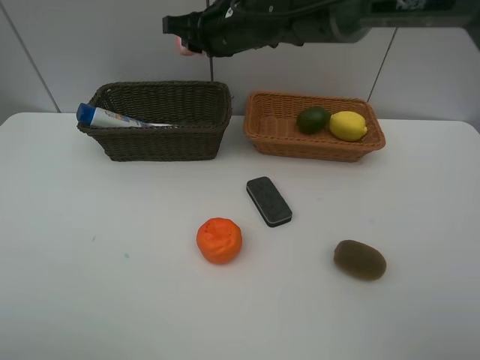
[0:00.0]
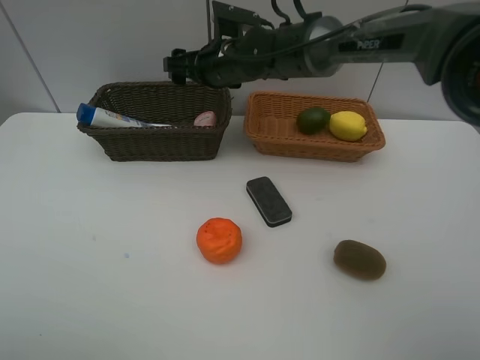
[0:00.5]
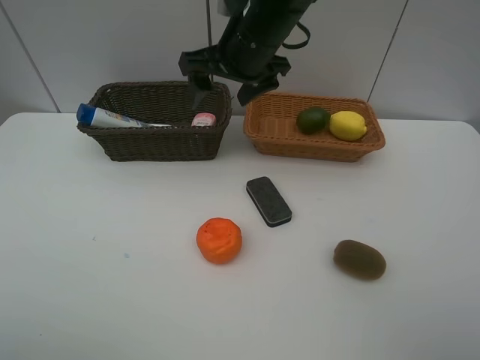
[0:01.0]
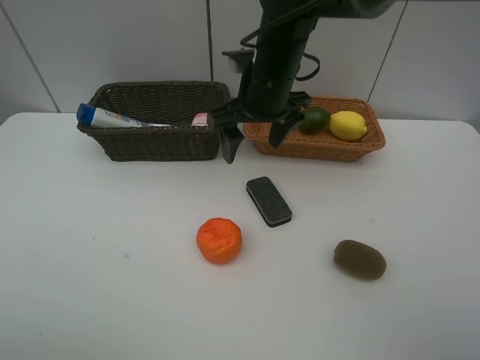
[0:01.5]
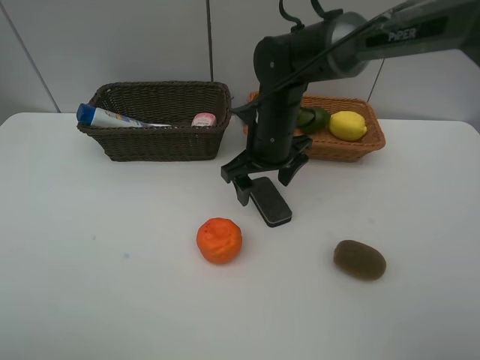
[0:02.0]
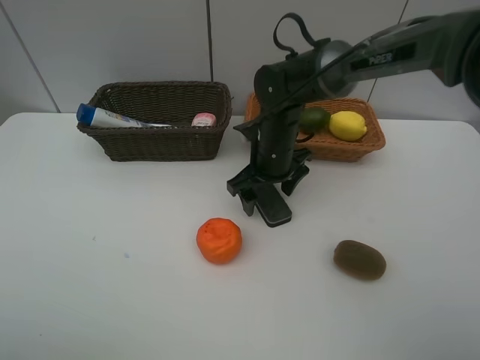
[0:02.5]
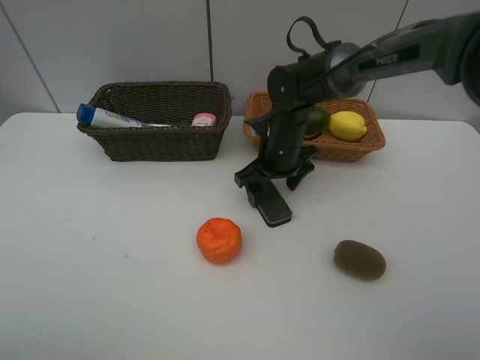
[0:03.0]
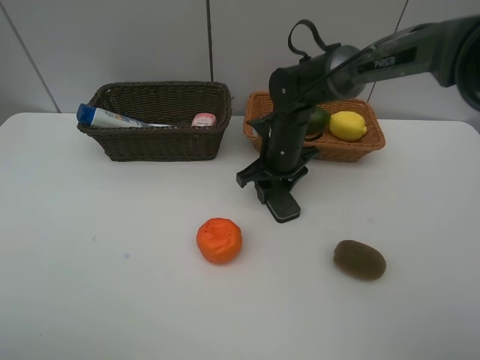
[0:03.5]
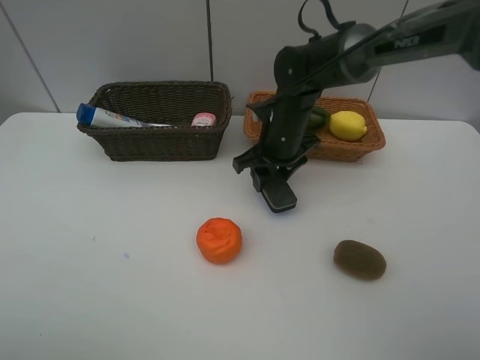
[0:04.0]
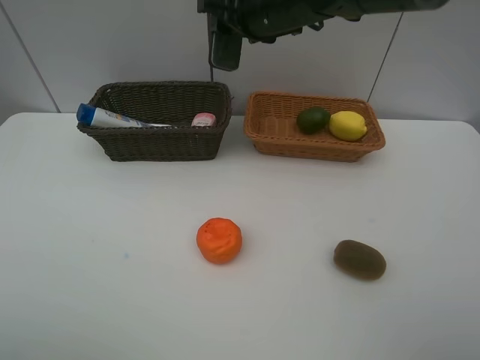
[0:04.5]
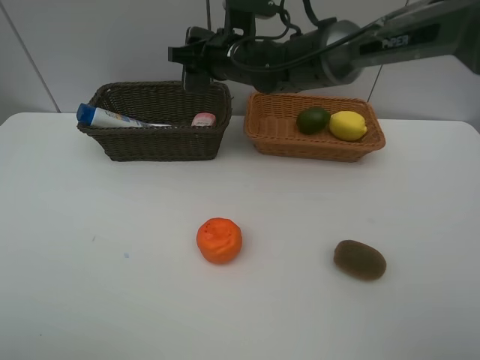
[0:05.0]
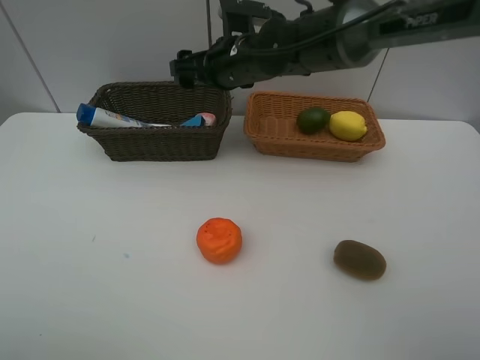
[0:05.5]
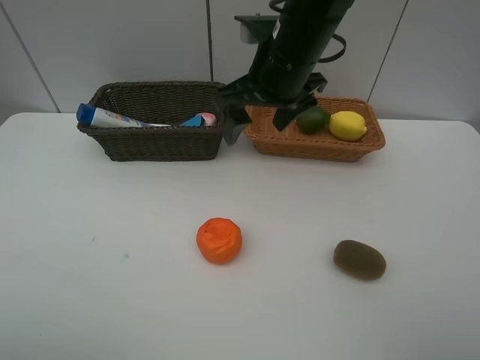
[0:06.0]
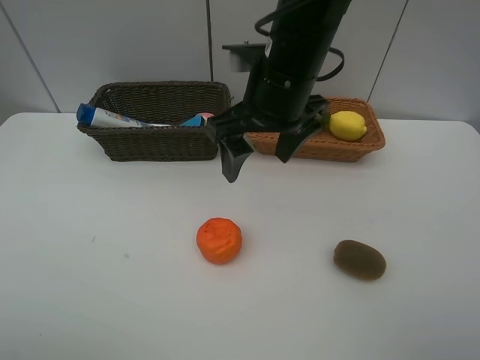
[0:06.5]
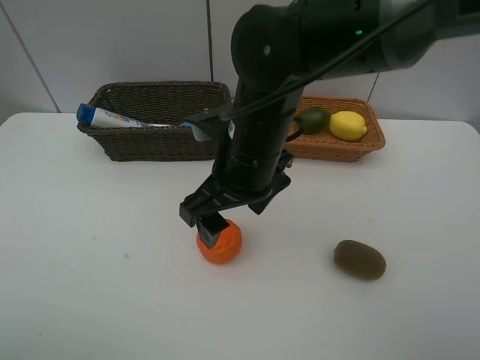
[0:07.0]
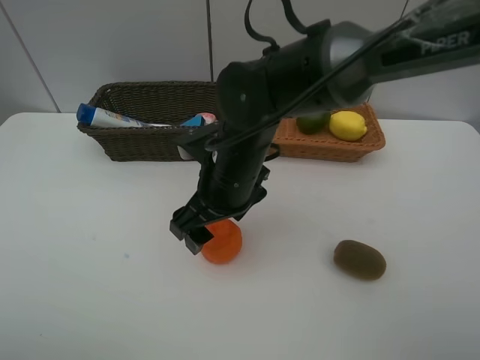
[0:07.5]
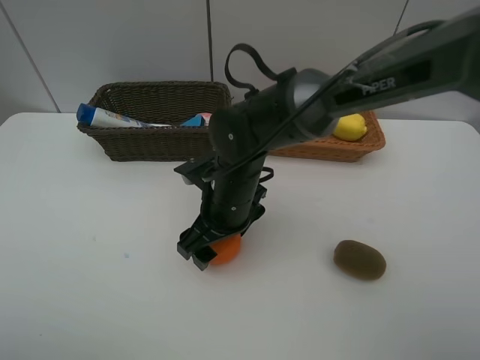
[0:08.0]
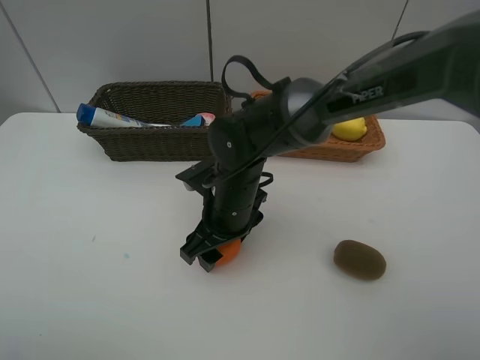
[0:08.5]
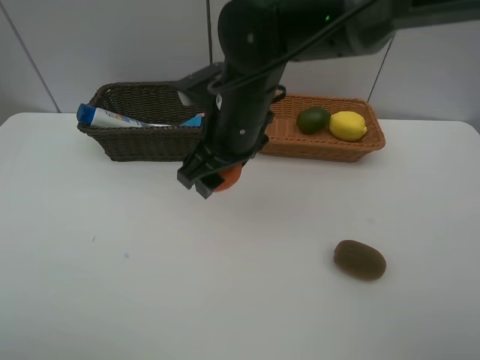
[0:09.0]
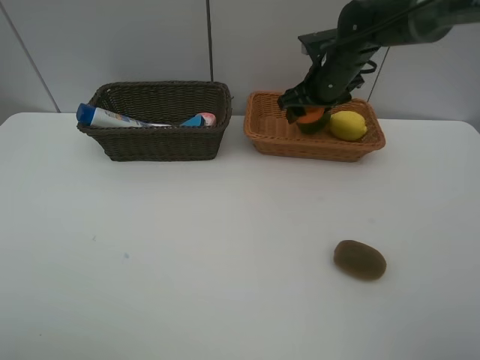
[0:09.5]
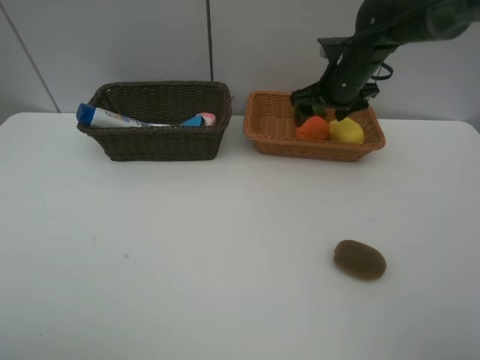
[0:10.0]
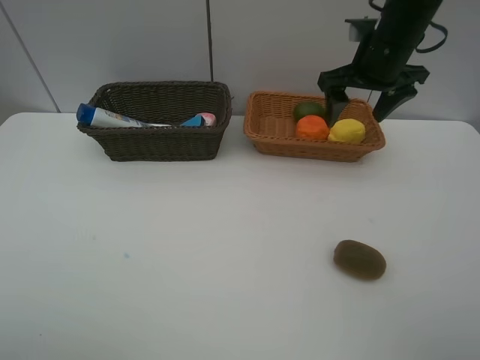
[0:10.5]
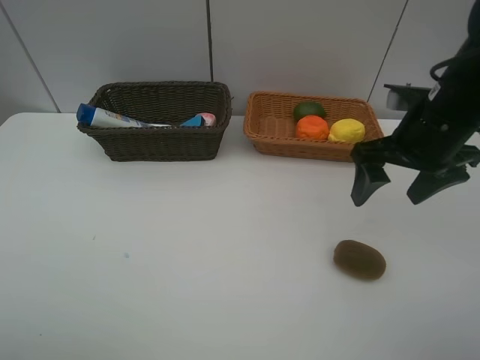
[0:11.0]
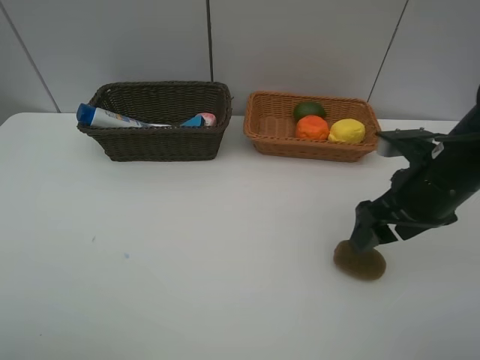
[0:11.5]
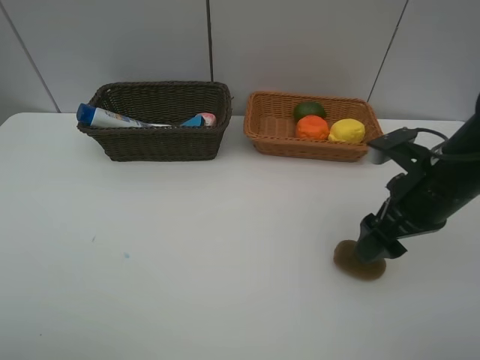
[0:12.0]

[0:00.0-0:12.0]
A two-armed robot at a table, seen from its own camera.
Task of the whole recording: Place multiple objects separately in different baskets.
Step, 0:01.0 to 0:04.0: Pick up blackboard eraser with right gripper.
Step, 0:04.5 to 0:05.0: Place the blackboard eraser in the dark basket with right gripper.
Step, 0:05.5 to 0:08.5: Pick up the orange with right gripper.
Step, 0:09.0 to 0:09.5: Place the orange in the light basket with right gripper.
0:00.0 to 0:02.0: The right gripper swings up and down, some 10 cm each way, with 2 reversals, and opens.
0:02.0 to 0:04.0: The right gripper closes up.
0:04.0 to 0:06.0: The right gripper goes up and down, approximately 15 cm each way, reversing 2 times, and opens up.
0:06.0 to 0:08.0: The right gripper is displaced downward, to the left and backward by some 20 cm.
0:08.0 to 0:10.0: The right gripper goes roughly 25 cm forward, to the right and upward.
0:10.0 to 0:12.0: The right gripper goes approximately 20 cm backward.

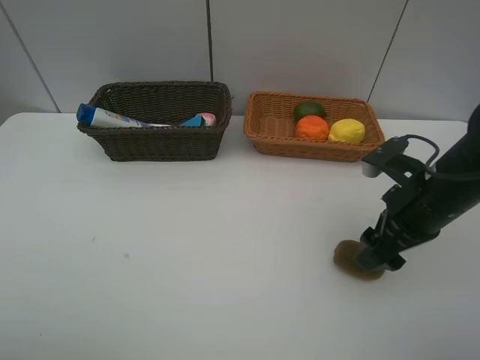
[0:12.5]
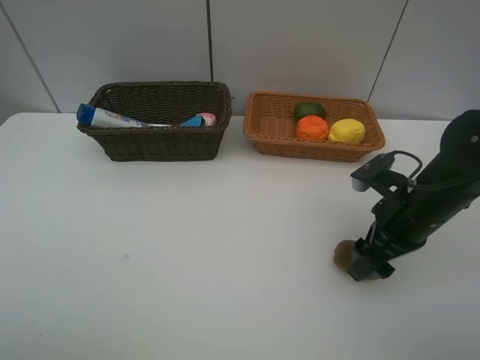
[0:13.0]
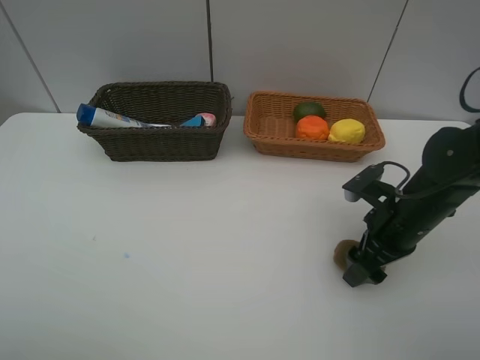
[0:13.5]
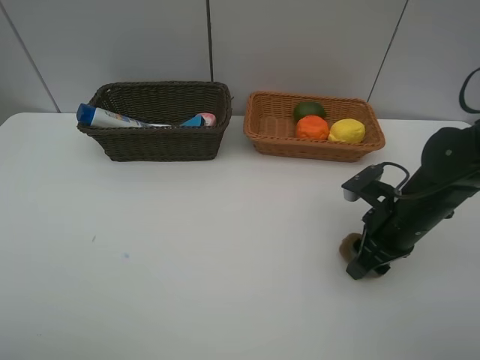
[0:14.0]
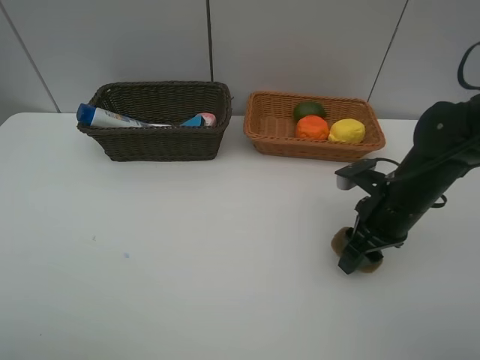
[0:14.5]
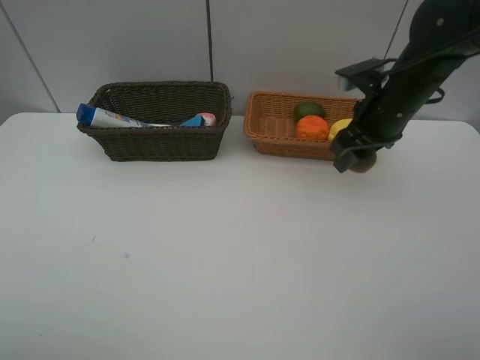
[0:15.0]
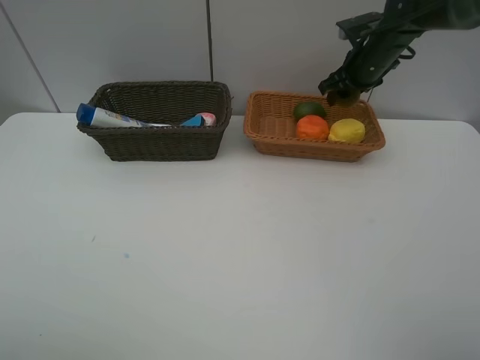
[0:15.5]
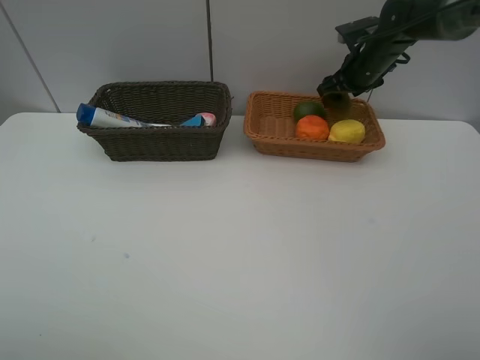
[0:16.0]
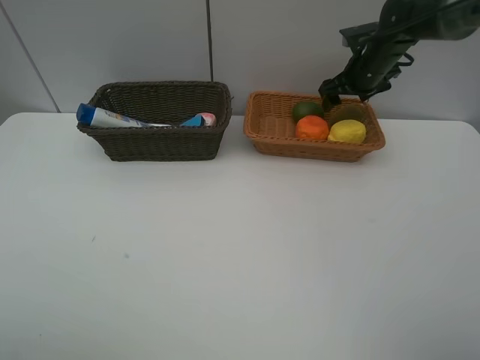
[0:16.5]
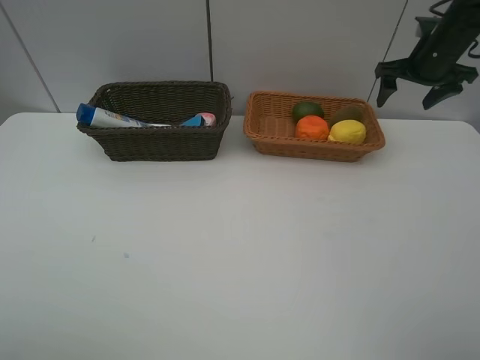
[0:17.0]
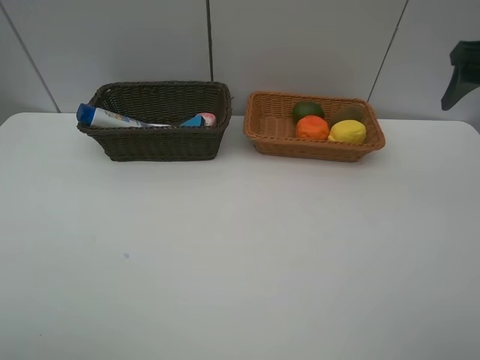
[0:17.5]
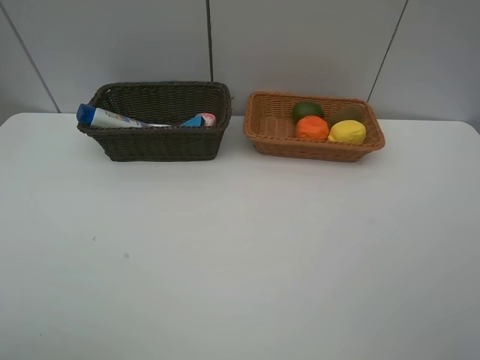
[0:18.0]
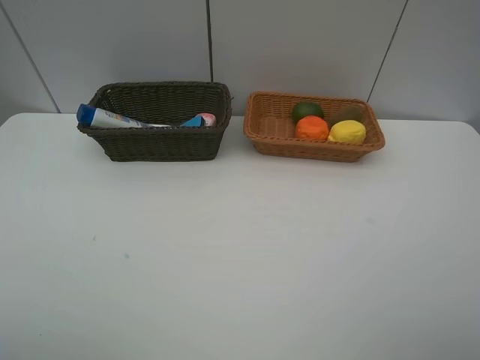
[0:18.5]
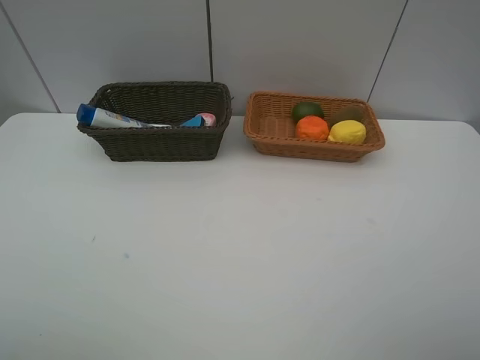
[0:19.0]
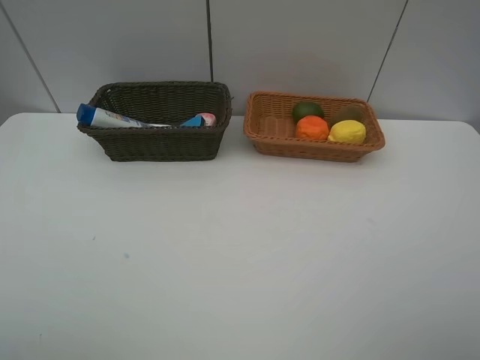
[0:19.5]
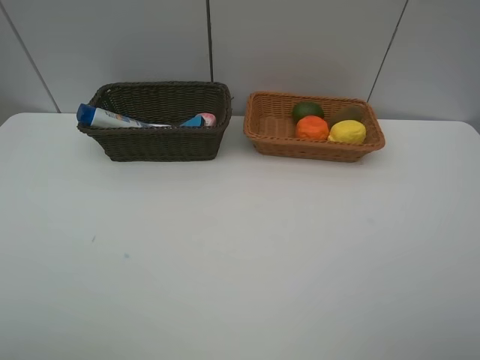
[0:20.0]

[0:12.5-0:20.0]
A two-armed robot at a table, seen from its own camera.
Task of the whole recording: Place multiple objects separately in different baskets.
Step, 0:12.5 to 0:14.5: Pick up kiwi with right gripper.
Step, 0:15.0 to 0:16.0: Place the kiwi in the light basket with right gripper.
0:12.5 to 0:14.5: The right gripper closes its fingers.
0:14.5 to 0:16.5: The right gripper travels forward by approximately 25 cm, and opens.
0:16.5 to 0:18.0: The right gripper moves backward, some 40 cm.

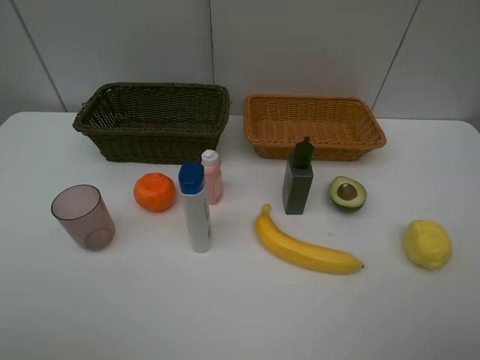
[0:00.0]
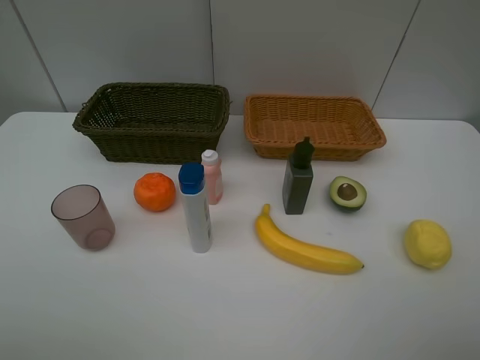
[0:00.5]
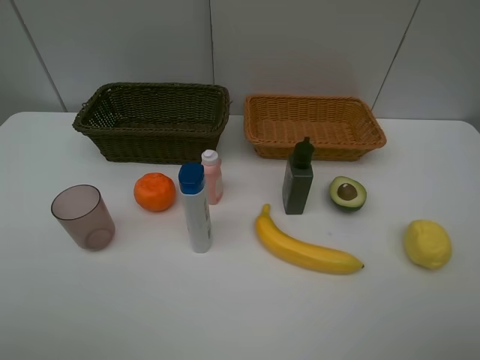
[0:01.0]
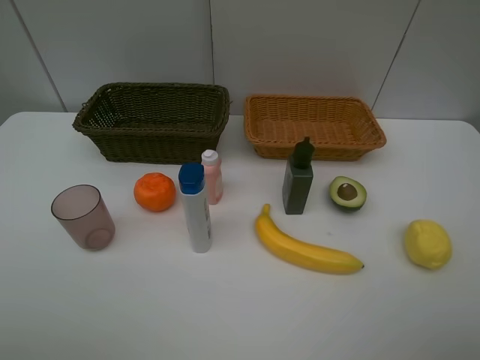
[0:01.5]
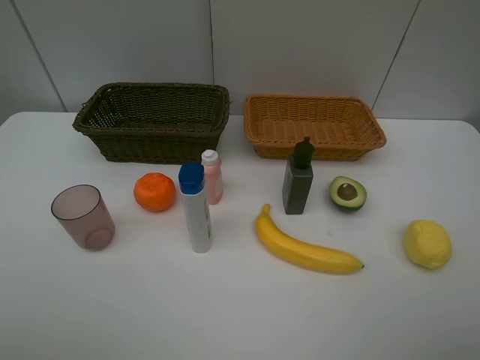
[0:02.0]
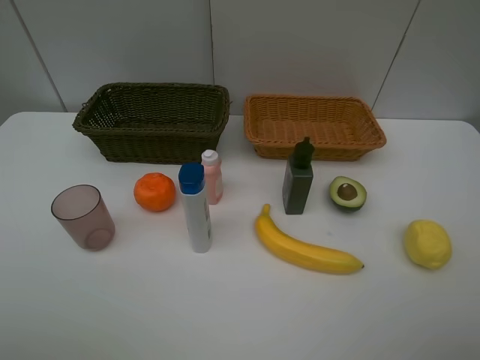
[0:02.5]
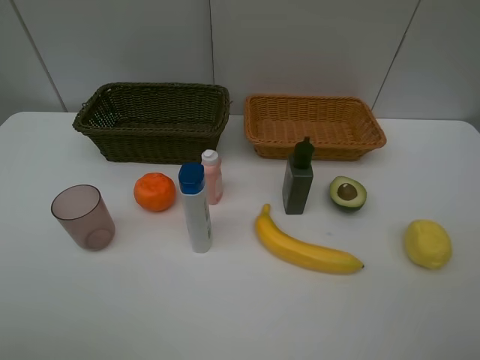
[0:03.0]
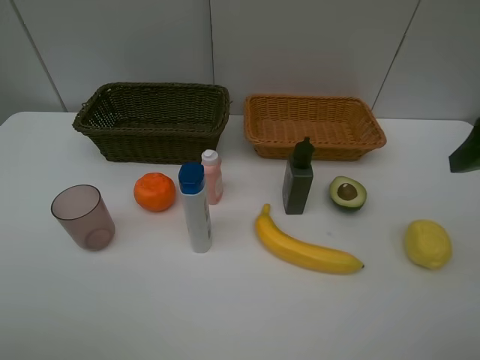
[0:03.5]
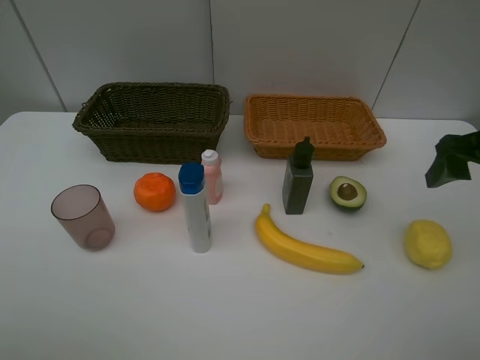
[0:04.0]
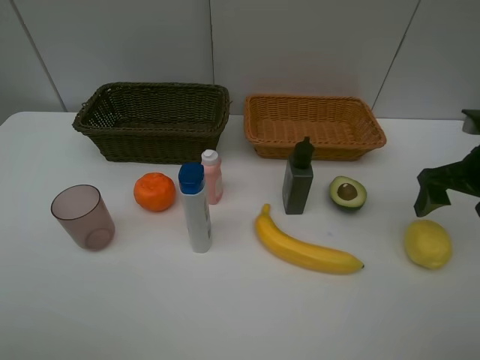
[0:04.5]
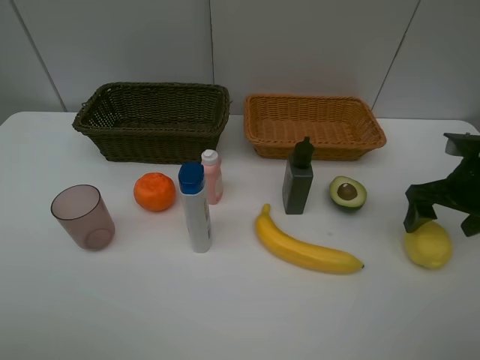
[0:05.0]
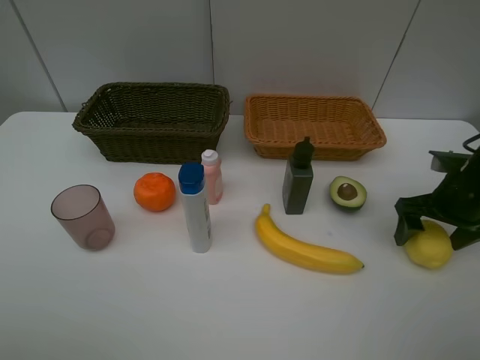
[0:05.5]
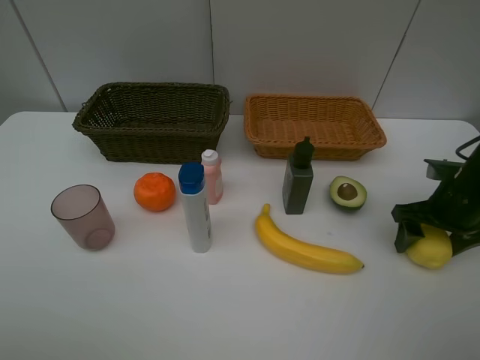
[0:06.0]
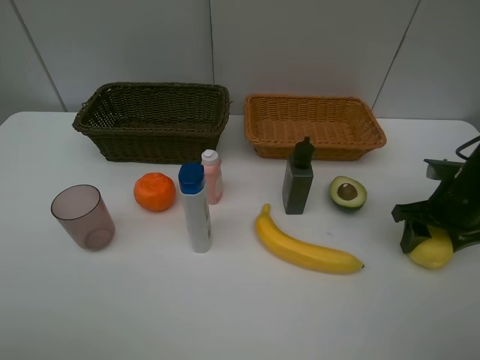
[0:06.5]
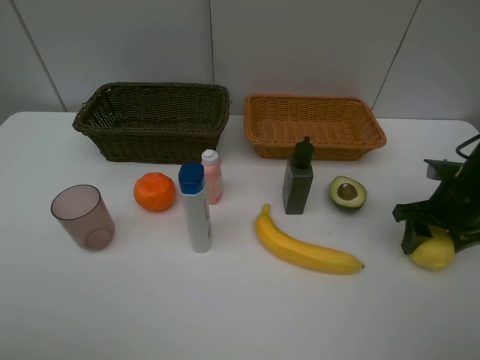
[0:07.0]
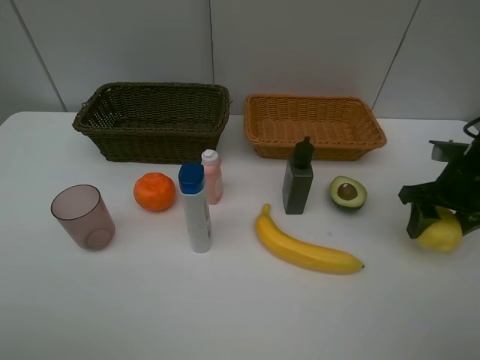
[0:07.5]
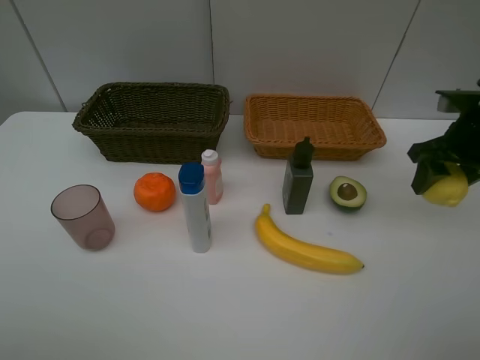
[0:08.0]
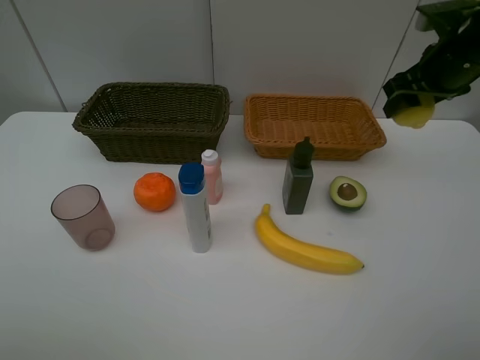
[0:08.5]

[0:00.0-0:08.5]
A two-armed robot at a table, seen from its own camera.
Task of the whole recording: Place multiple objects separately in different baskets.
Step, 0:00.0 to 0:07.0: Pick up the lemon with right gripper.
0:00.0 to 0:02.0: Neither gripper changes place.
0:02.0 to 0:04.0: The right gripper travels forward by about 25 cm.
0:04.0 to 0:06.5: The right gripper travels downward by roughly 15 cm, and closes up.
0:06.5 to 0:08.5: The right gripper goes some 20 cm upward and forward.
